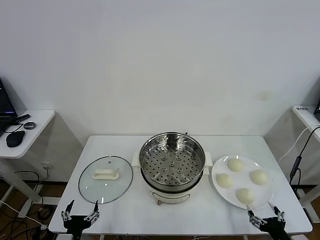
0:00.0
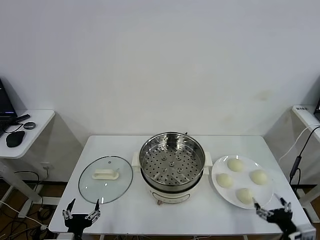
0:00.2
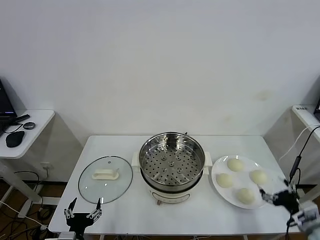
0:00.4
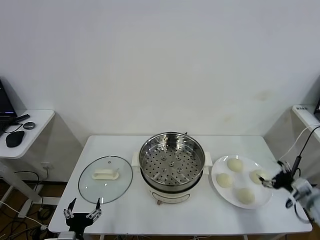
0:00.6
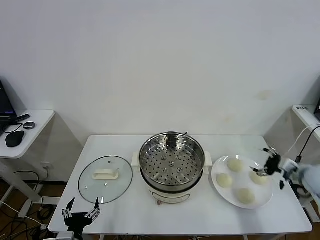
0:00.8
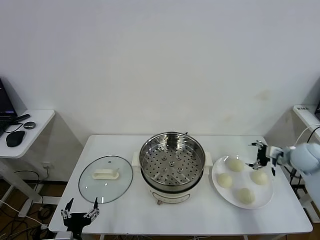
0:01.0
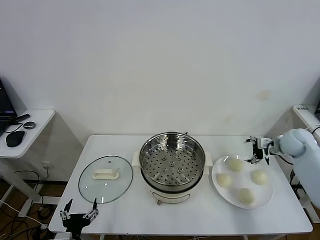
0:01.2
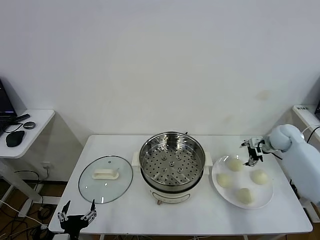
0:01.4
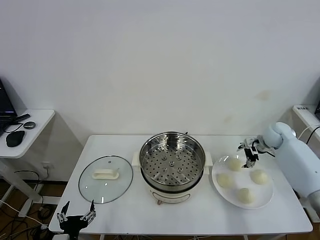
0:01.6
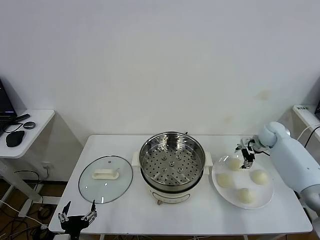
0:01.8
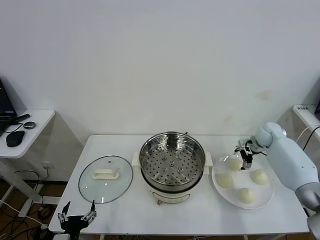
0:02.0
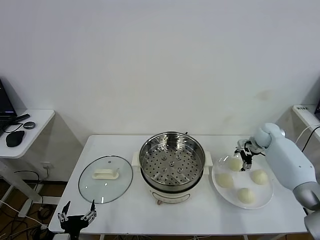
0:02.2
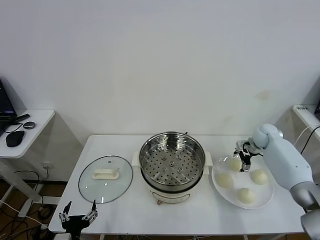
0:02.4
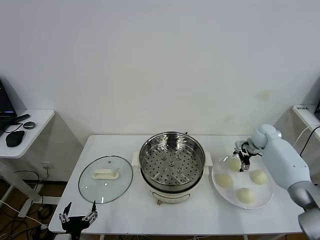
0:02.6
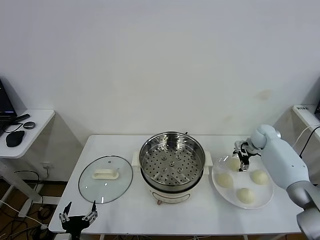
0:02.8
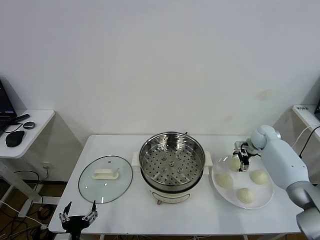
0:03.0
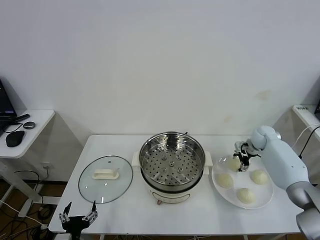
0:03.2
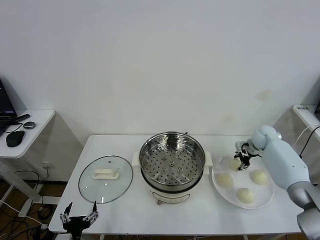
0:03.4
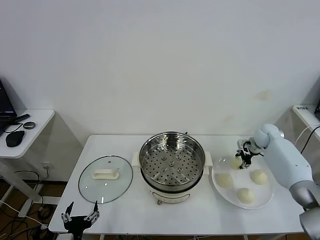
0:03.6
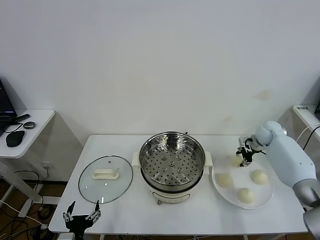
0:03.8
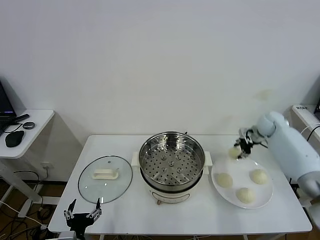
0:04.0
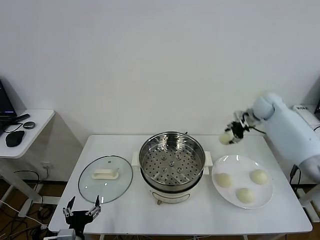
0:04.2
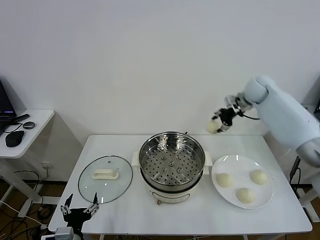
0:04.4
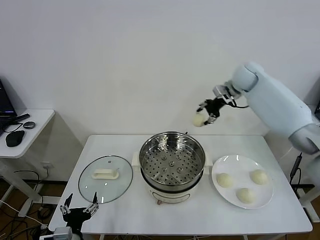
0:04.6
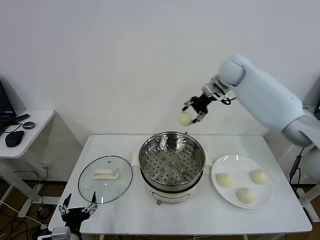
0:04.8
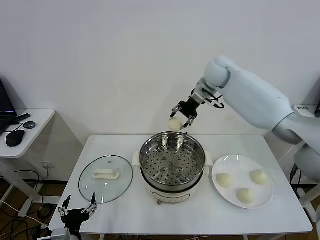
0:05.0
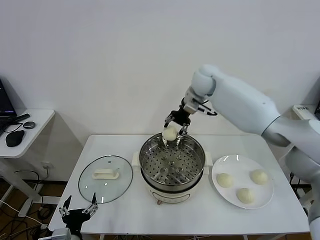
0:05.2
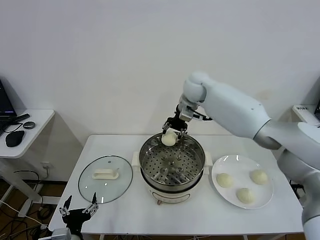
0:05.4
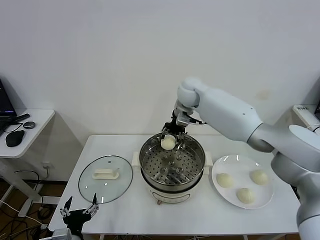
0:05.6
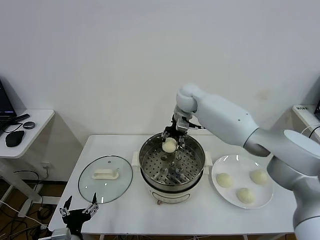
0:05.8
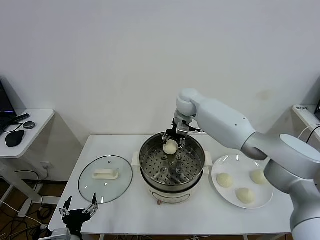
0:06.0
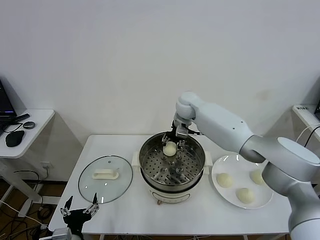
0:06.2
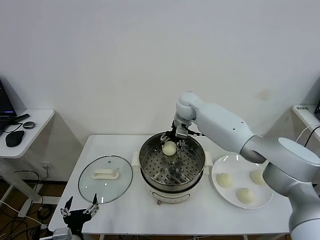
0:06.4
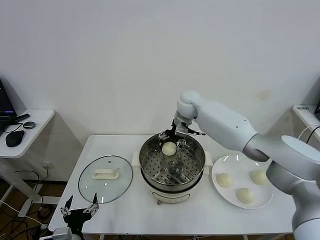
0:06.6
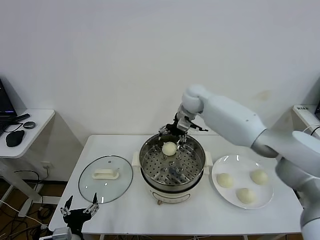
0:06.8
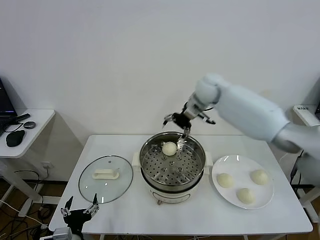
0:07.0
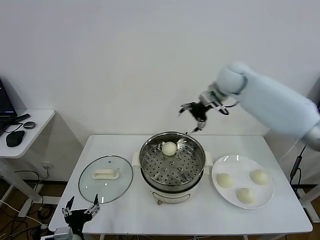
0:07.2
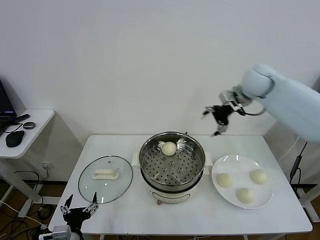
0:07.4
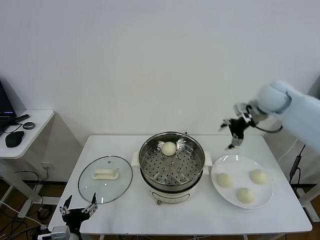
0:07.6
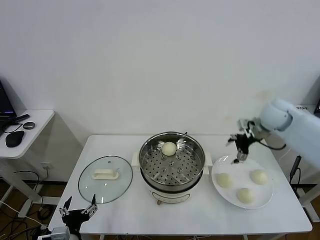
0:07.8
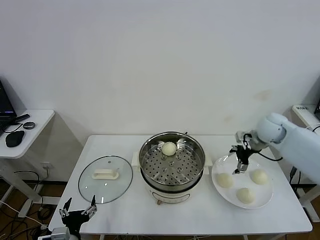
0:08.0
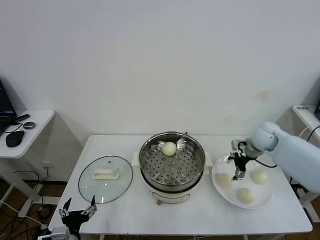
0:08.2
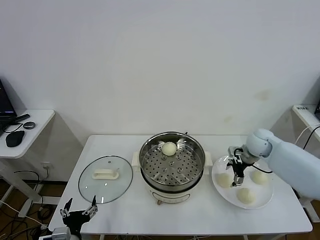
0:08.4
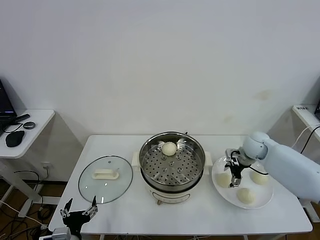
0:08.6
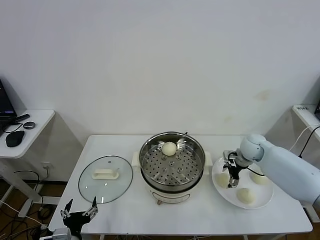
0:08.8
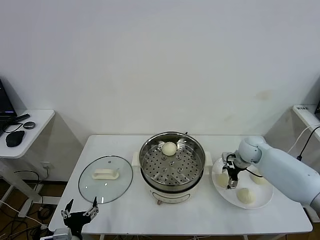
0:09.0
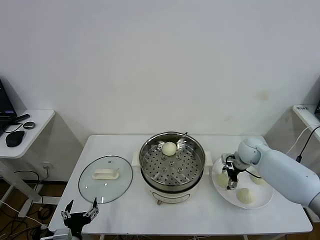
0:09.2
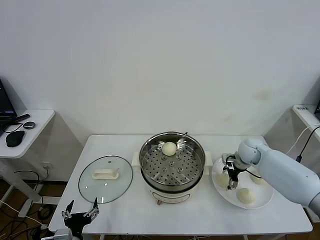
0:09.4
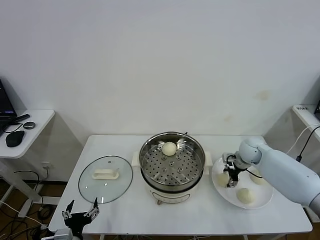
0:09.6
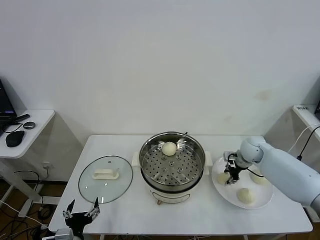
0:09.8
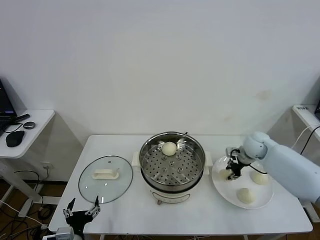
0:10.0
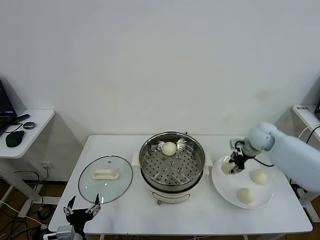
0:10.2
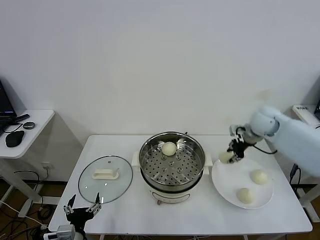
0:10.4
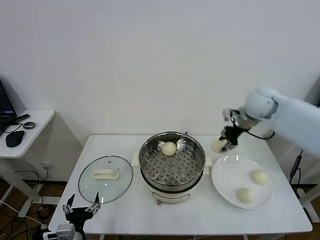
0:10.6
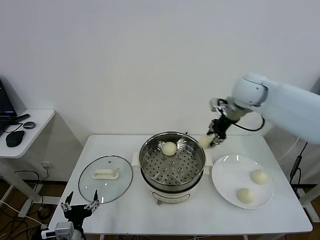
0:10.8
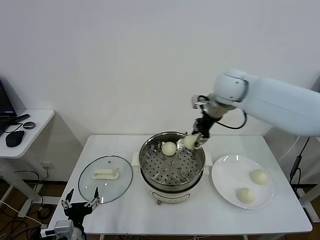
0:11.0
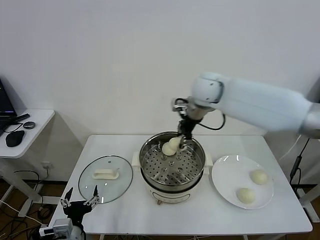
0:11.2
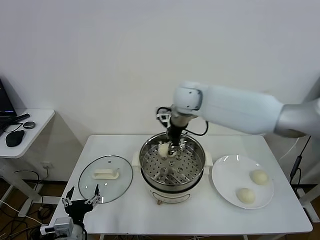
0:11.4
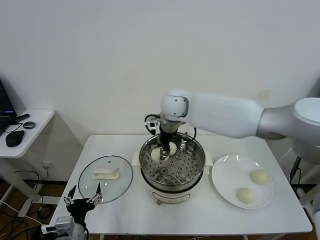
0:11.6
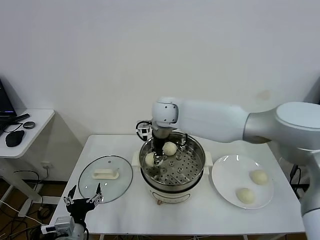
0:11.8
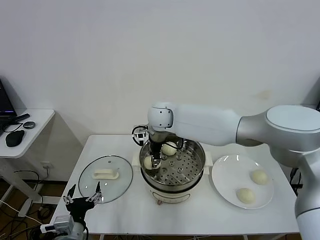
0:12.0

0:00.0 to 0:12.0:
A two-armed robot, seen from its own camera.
Task of the whole recording: take steamed baozi put them in steamer.
Step, 0:00.0 to 0:03.2: Grasp the baozi in the plate with right gripper.
Step, 0:03.6 to 0:06.6: Place the baozi on the steamer with right gripper.
Step, 0:06.8 to 0:09.6: Grasp the baozi in the plate with right gripper.
0:01.6 to 0:03.0: The right gripper shifts by some 5 cm.
0:03.0 to 0:04.4: The right gripper moves upward and to the left, approximately 20 cm, and closes its fingers.
0:04.4 to 0:06.0: The right gripper travels to the left by about 25 cm.
0:06.0 to 0:07.6: The right gripper goes some 25 cm to the right, and opens its fingers.
0:07.6 to 0:09.0: The right gripper shifts approximately 20 cm downward.
0:09.0 to 0:10.4: The right gripper goes roughly 15 cm upward, and closes.
0:10.4 to 0:12.0: The right gripper moves to the left, some 35 cm.

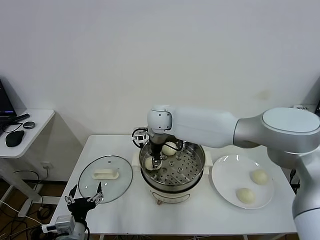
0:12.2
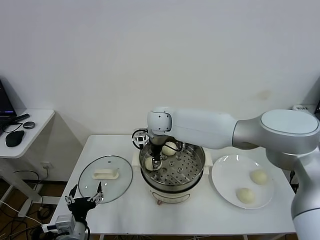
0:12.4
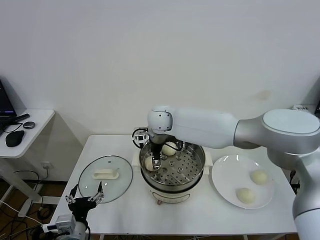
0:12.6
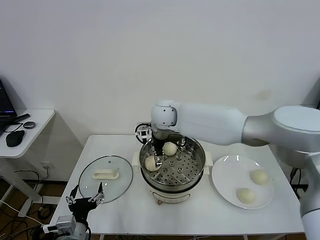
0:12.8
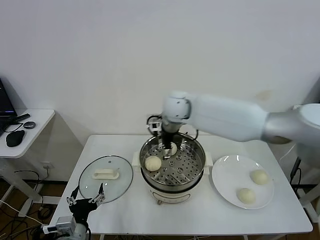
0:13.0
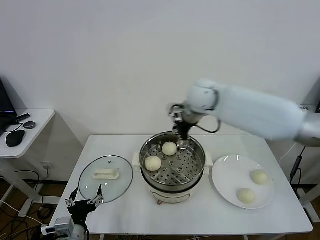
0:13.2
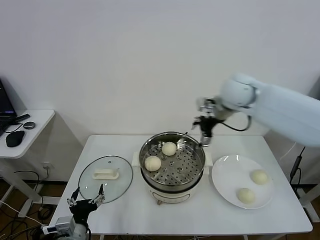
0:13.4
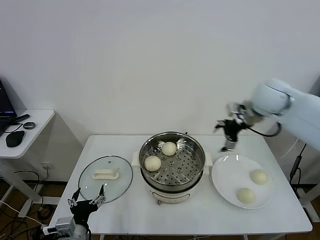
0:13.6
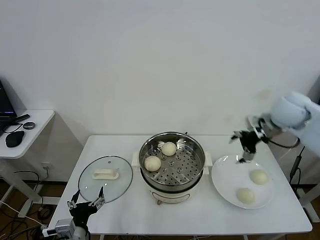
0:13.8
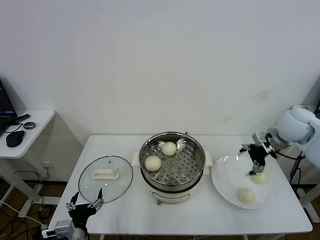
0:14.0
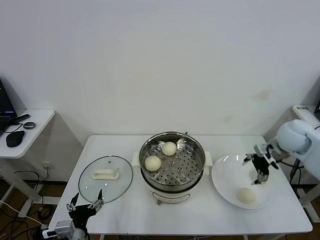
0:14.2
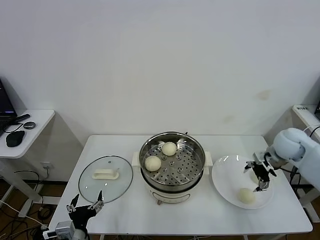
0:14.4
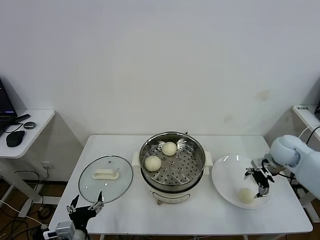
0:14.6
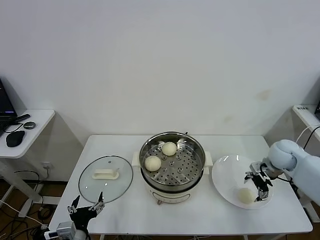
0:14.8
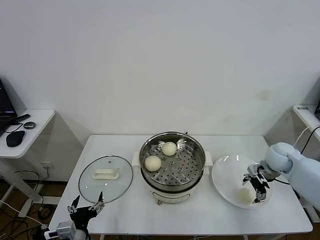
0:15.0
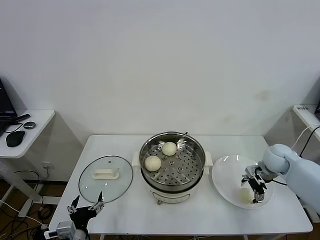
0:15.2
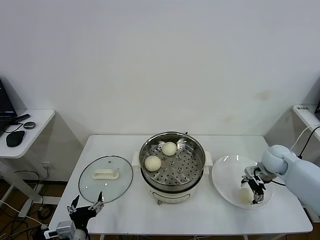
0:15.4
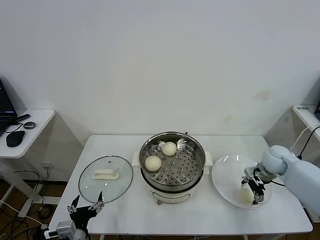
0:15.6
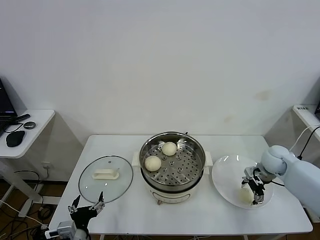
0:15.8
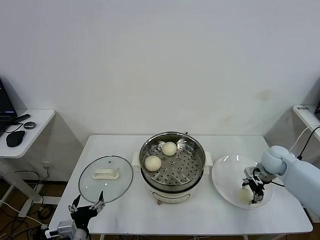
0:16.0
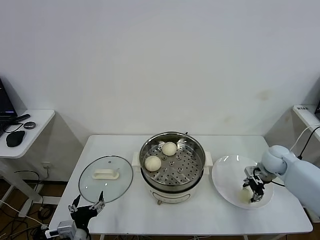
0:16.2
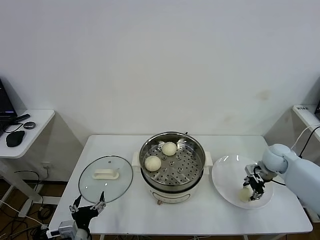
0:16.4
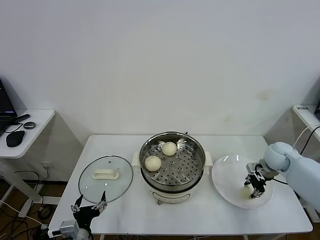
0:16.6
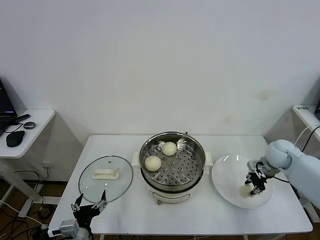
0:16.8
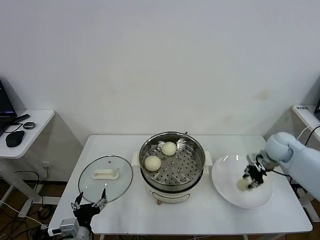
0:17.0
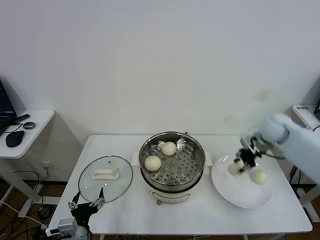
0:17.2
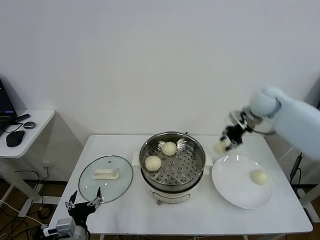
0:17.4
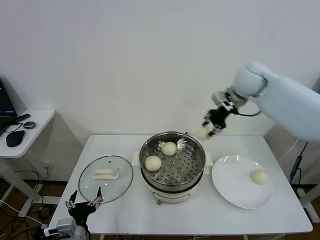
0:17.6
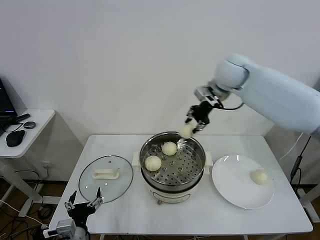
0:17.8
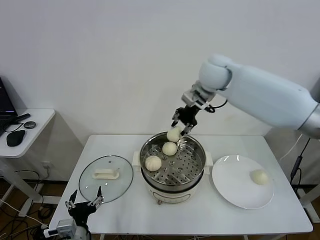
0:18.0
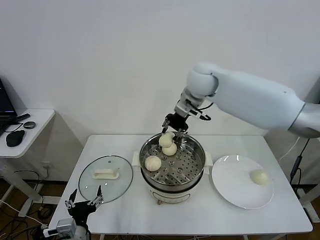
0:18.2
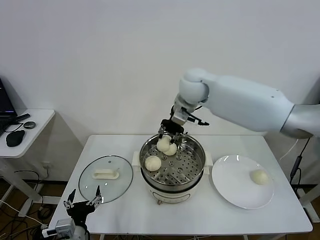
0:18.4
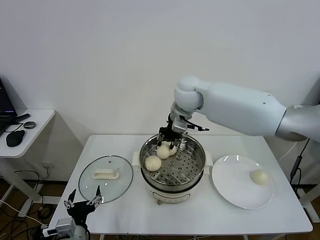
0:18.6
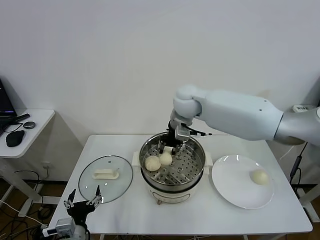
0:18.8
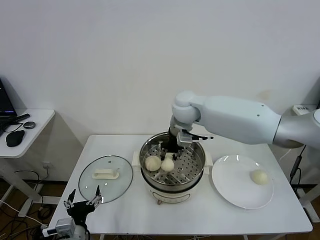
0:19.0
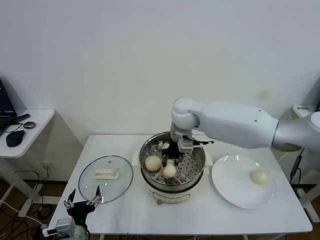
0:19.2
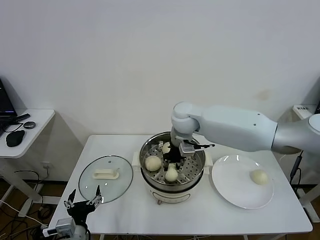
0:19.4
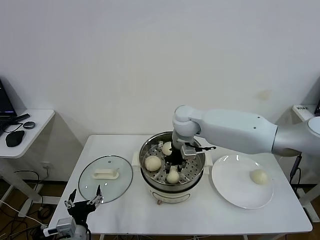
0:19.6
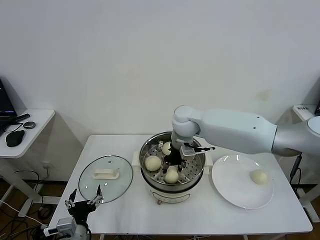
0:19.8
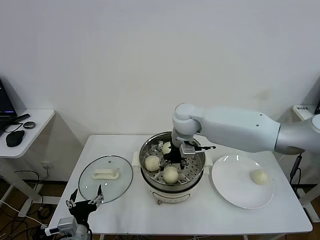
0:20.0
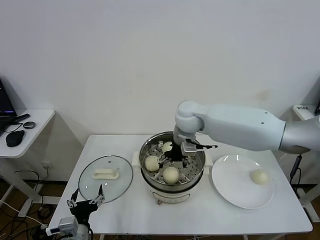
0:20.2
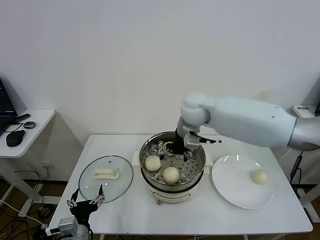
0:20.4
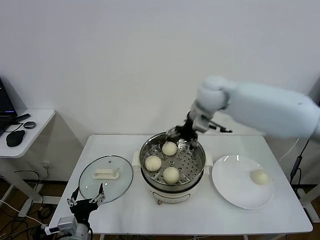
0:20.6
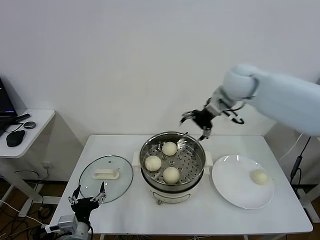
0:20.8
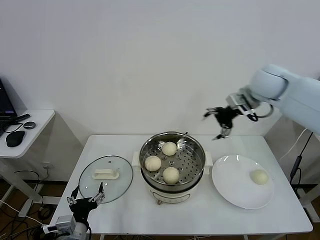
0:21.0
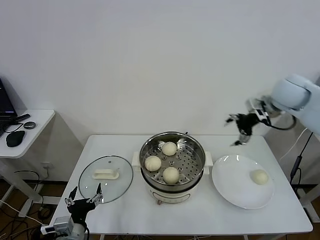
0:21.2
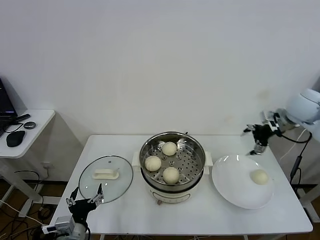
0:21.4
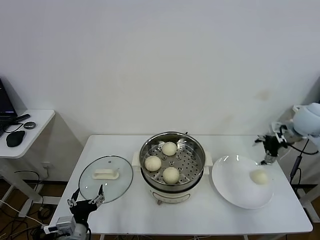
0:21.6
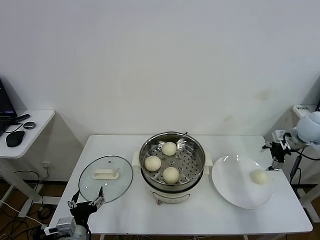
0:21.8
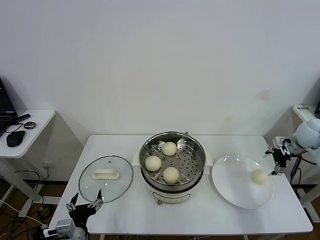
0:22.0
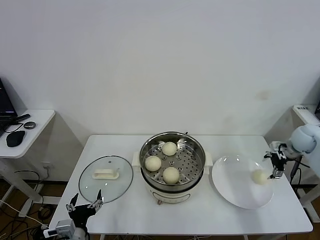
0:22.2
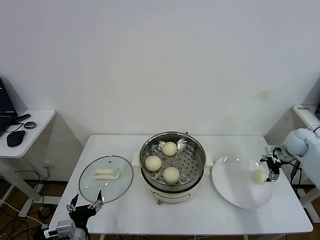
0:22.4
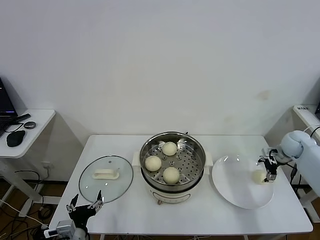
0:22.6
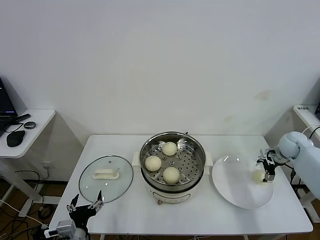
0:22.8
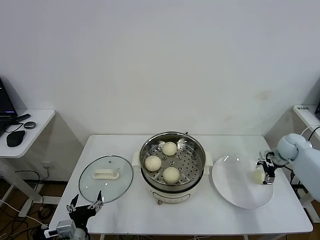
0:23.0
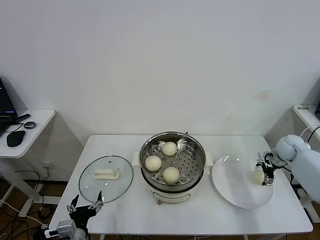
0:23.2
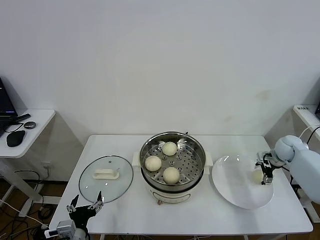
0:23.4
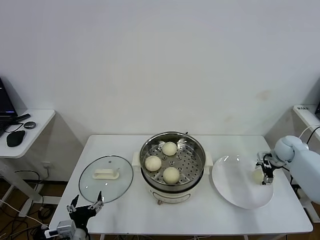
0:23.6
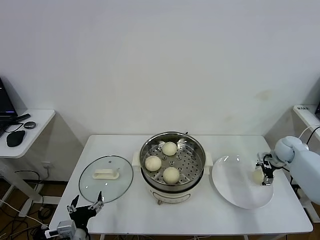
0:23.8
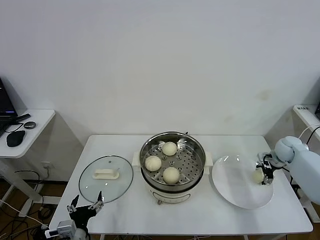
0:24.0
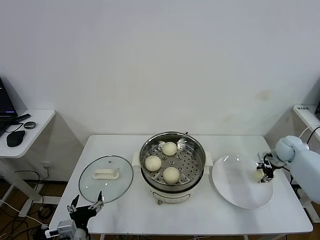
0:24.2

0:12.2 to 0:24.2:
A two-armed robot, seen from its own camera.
Task of the whole recording: take steamed baozi put them in steamer.
Step, 0:12.8 to 0:16.4: Grasp the baozi in the plate with right gripper.
Step, 0:16.6 to 0:20.2: Place the baozi on the steamer with right gripper.
0:12.2 to 0:13.8: The right gripper moves to the right, approximately 35 cm, and opens up.
0:13.8 to 0:15.2: The right gripper heads downward, covering approximately 20 cm.
0:15.2 to 0:16.6: The right gripper closes its fingers.
0:16.6 to 0:18.2: The right gripper shifts some 40 cm to the left and upward.
0:18.2 to 0:19.8: The right gripper shifts approximately 10 cm downward.
0:19.8 to 0:21.2: The right gripper goes about 30 cm to the right, and opens.
0:21.2 to 0:22.6: The right gripper is displaced downward and to the right by roughly 25 cm.
0:22.6 to 0:24.2: The right gripper closes its fingers.
